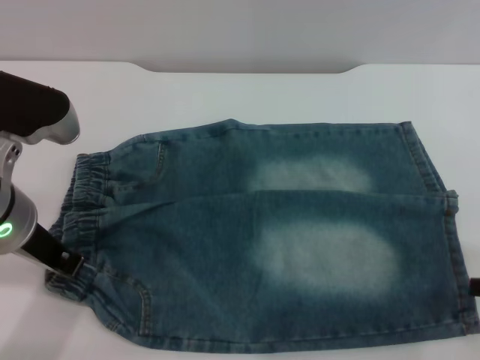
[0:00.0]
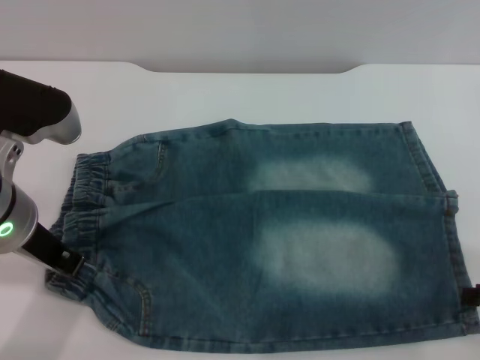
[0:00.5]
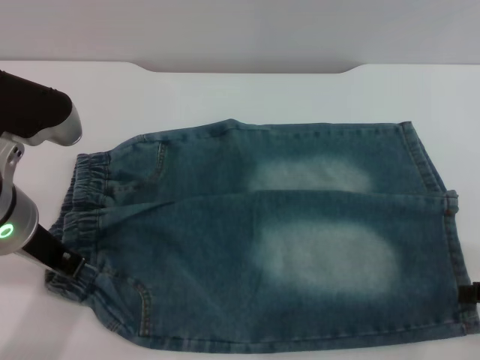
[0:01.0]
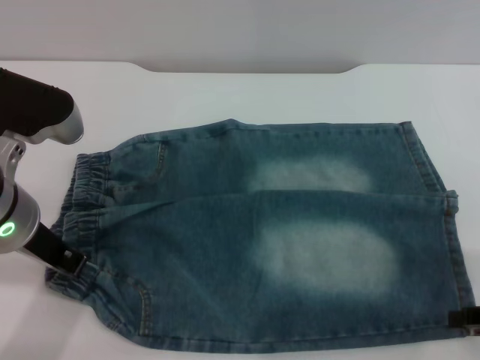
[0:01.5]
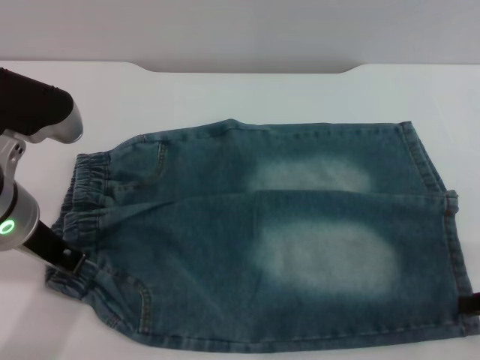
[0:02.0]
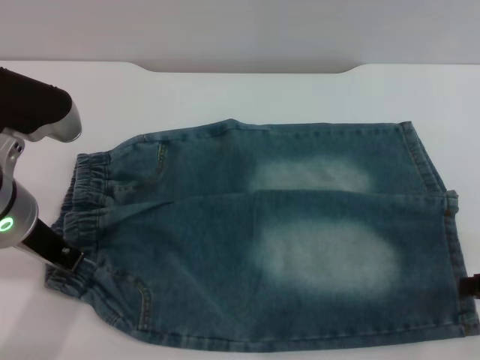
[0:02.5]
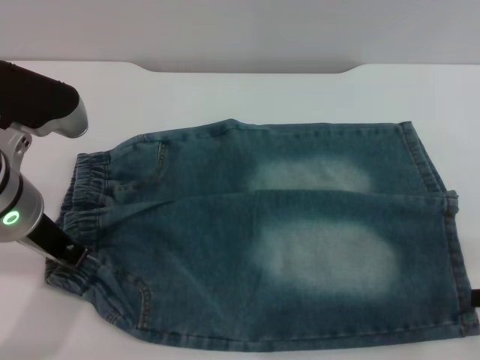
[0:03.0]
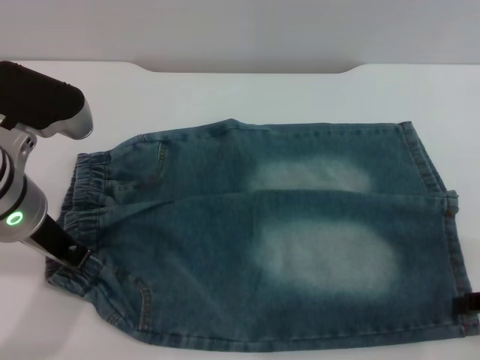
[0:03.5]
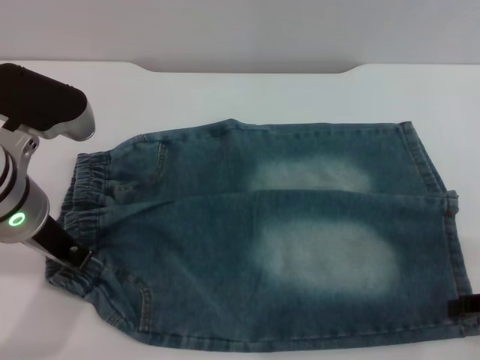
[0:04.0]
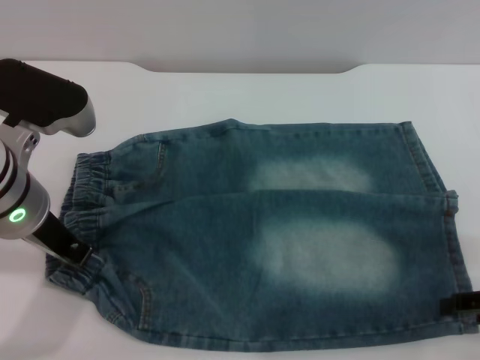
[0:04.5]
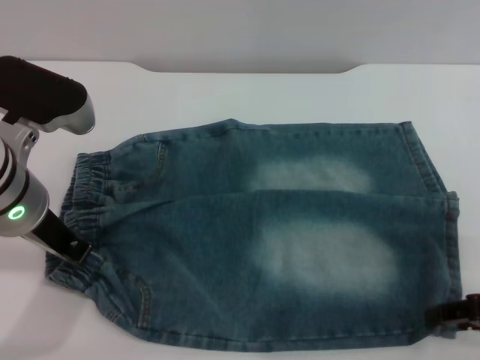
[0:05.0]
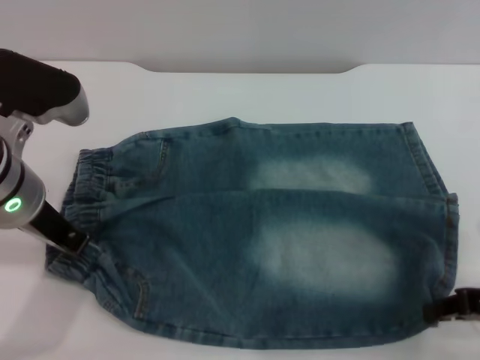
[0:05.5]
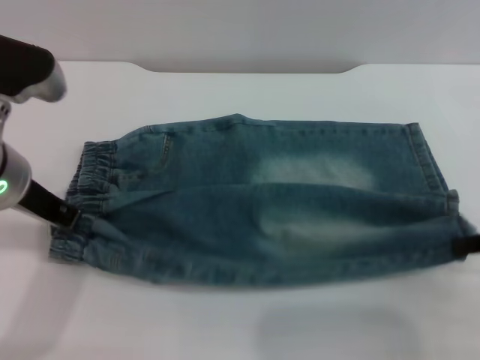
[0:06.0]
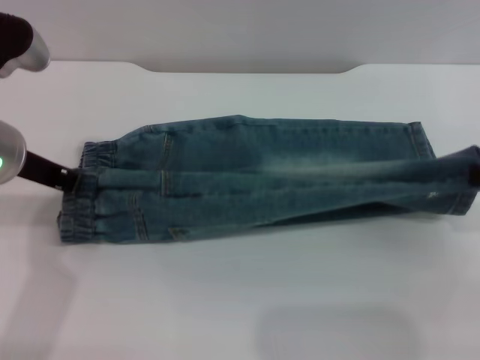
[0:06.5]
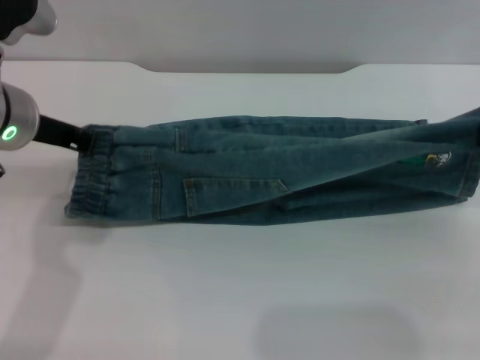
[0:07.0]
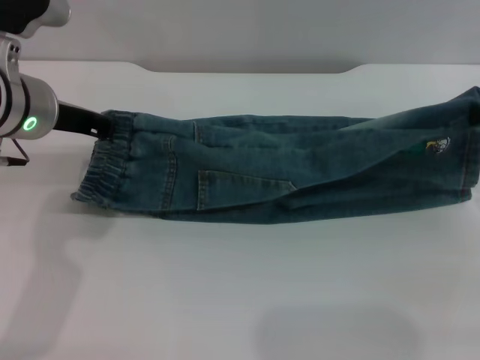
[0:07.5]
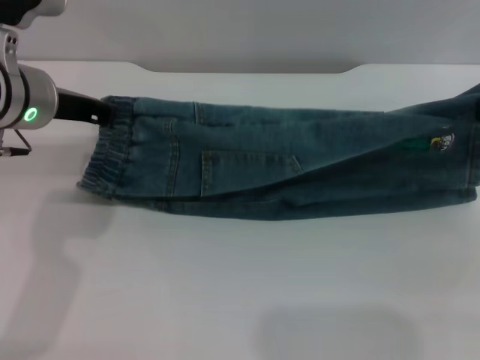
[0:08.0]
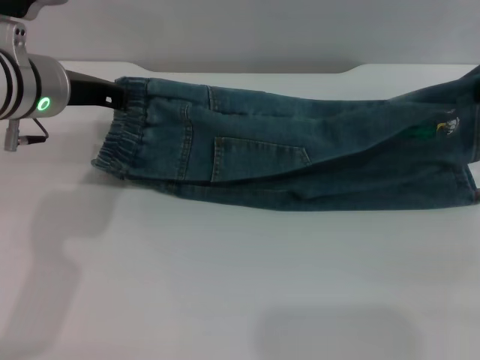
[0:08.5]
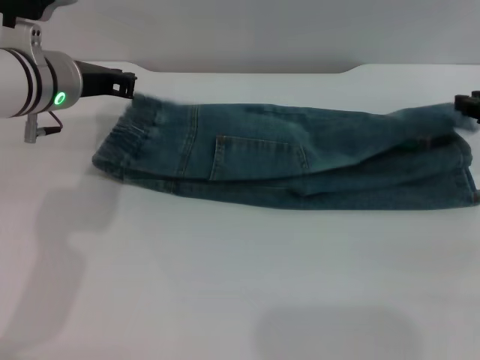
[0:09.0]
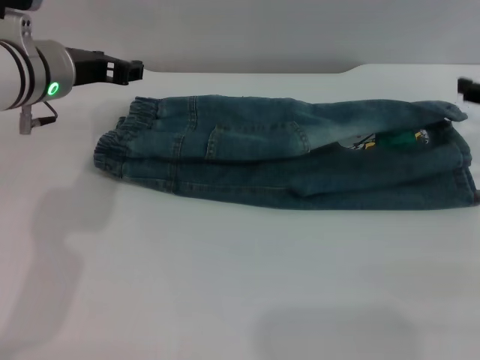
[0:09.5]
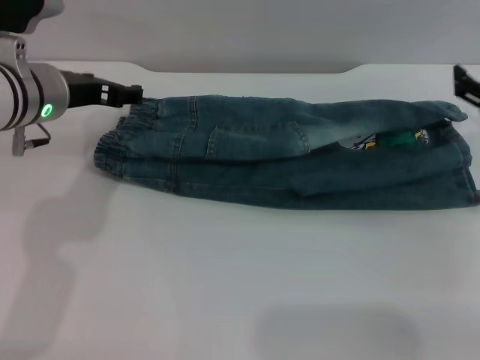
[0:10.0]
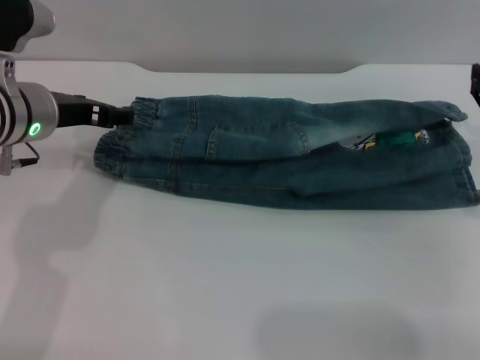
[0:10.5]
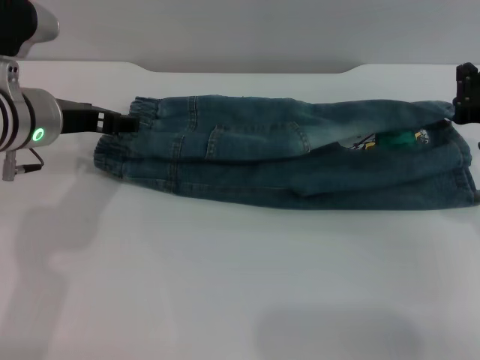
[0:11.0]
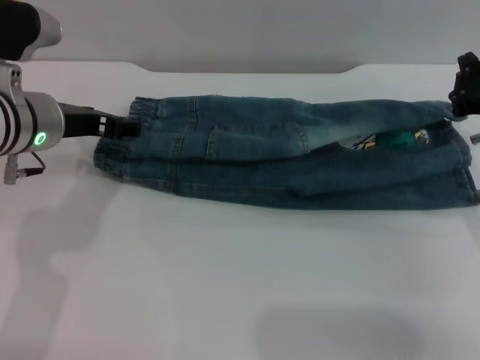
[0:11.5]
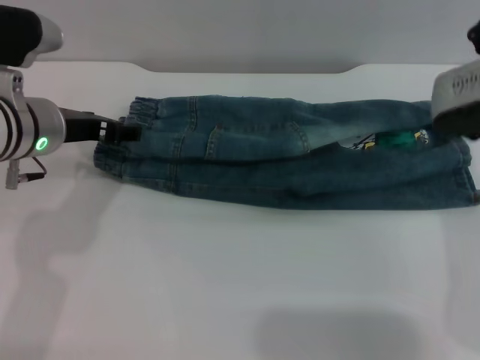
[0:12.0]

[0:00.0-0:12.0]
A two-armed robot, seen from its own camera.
Step, 0:00.0 to 0:09.5: Fold the bottom of the pants upward with both grippers.
0:04.0 to 0:06.0: The right gripper ends up roughly 5 cm from where it was, and closes its fingers.
0:06.0 to 0:08.0: The right gripper travels forward by some 5 cm.
0:08.0 to 0:10.0: The left gripper opens up; the right gripper is displaced downward by some 5 cm, and opens up.
0:10.0 to 0:12.0: The right gripper travels to the left by roughly 10 cm, and closes.

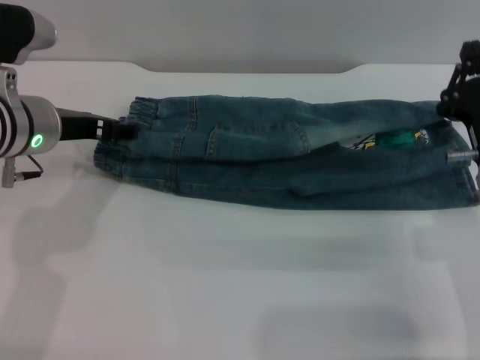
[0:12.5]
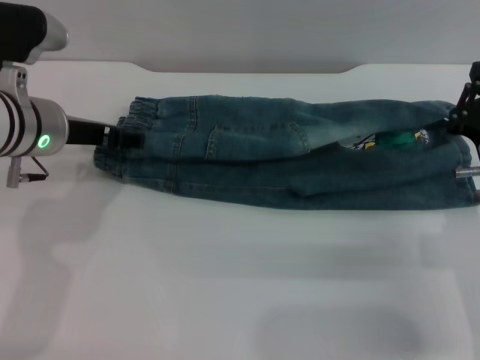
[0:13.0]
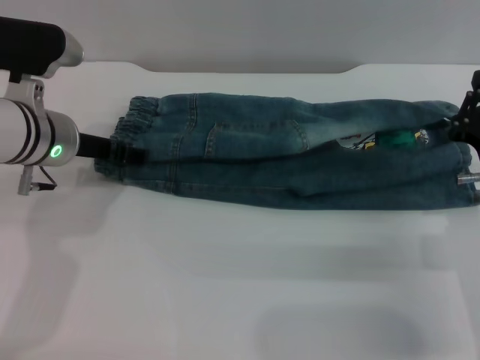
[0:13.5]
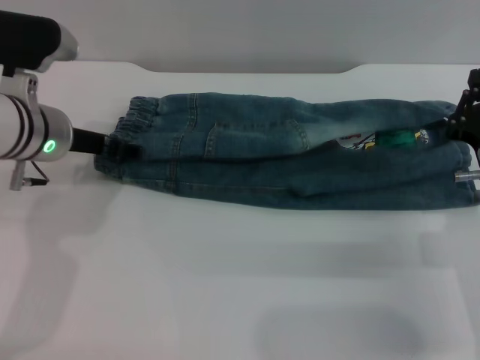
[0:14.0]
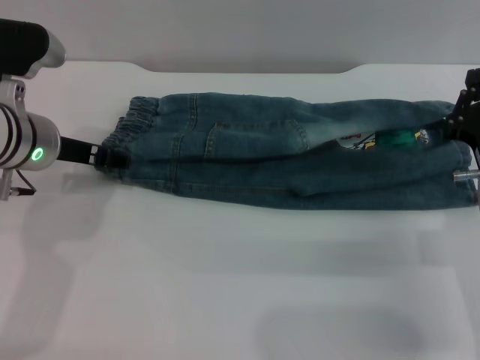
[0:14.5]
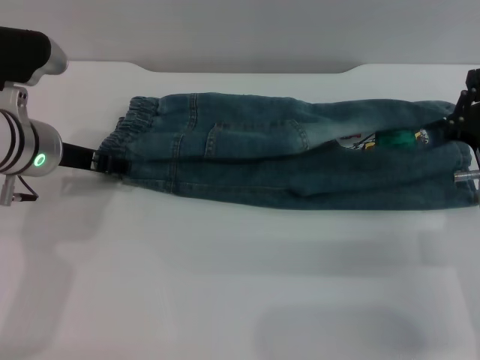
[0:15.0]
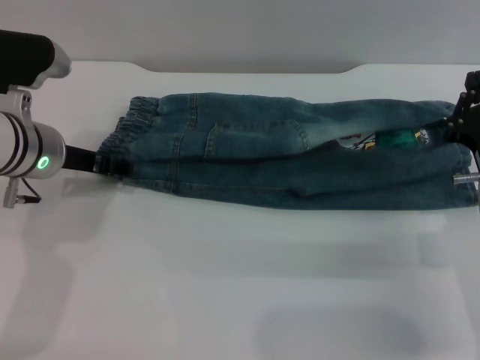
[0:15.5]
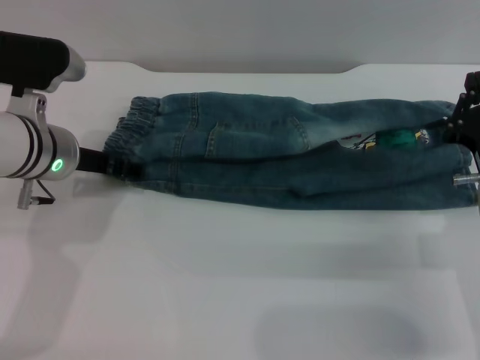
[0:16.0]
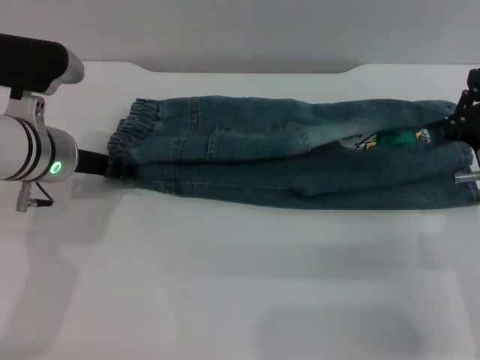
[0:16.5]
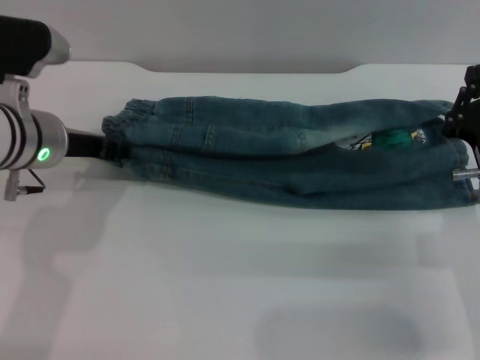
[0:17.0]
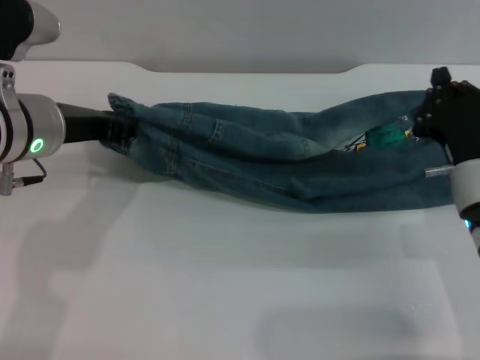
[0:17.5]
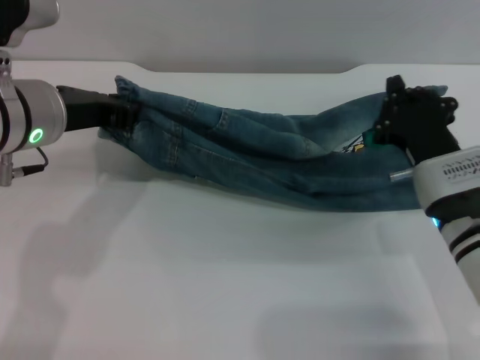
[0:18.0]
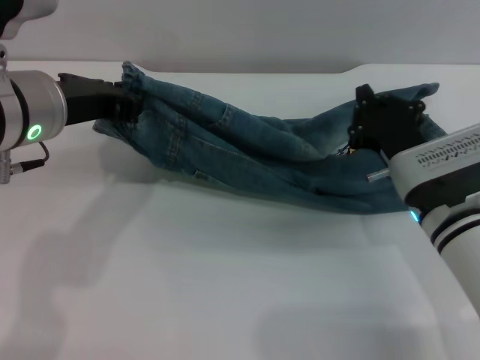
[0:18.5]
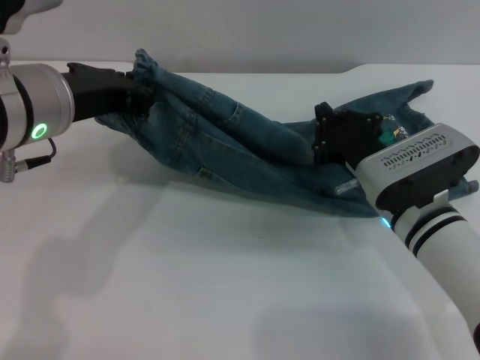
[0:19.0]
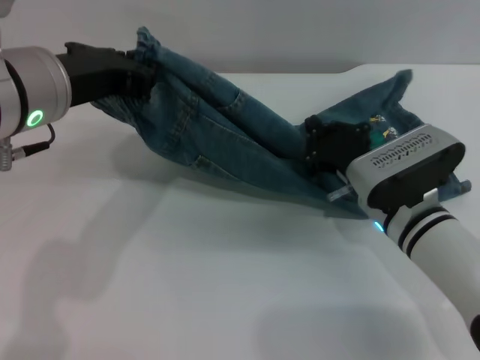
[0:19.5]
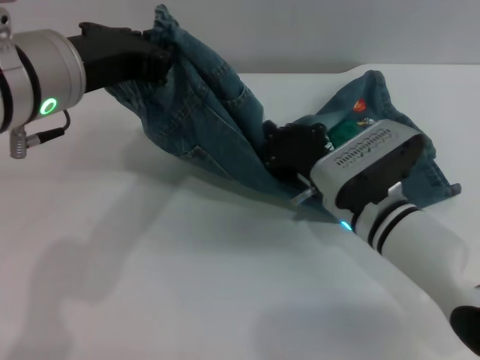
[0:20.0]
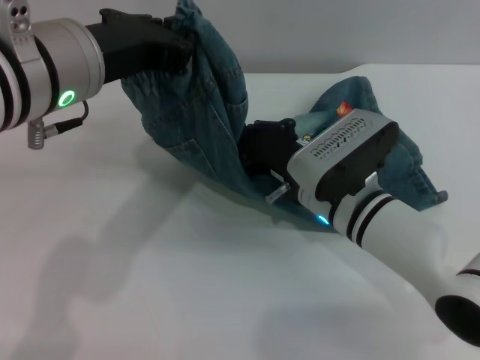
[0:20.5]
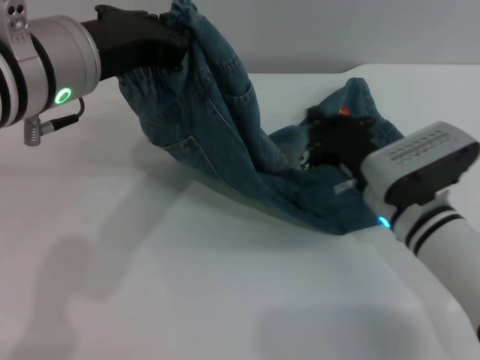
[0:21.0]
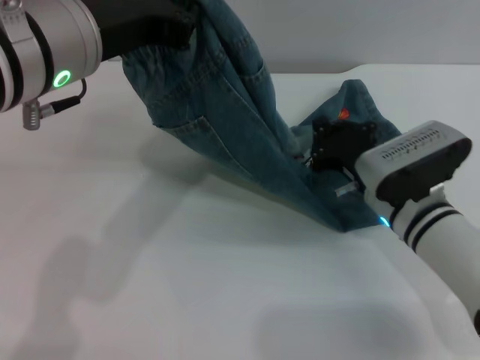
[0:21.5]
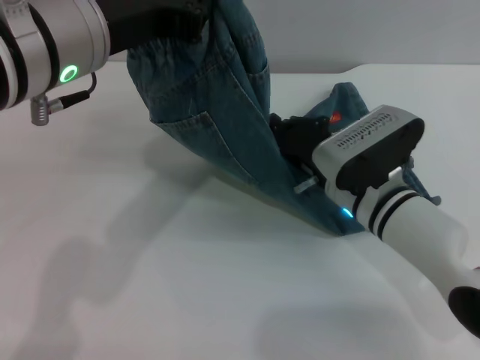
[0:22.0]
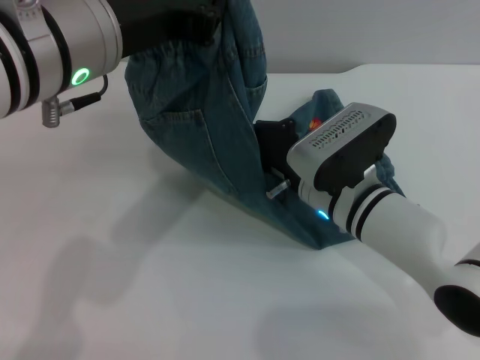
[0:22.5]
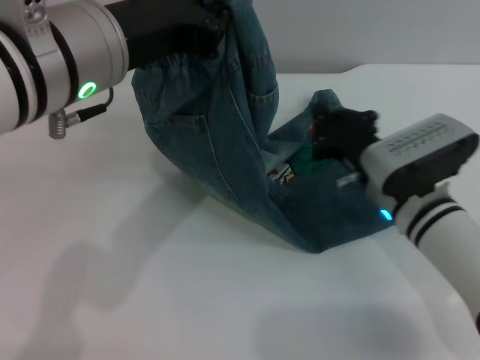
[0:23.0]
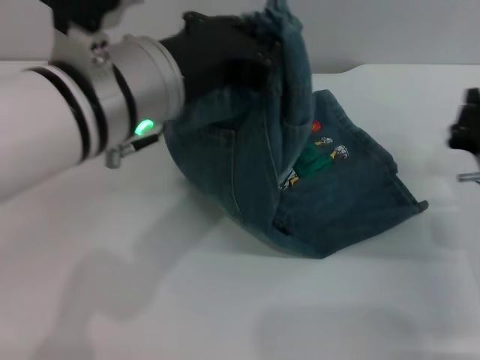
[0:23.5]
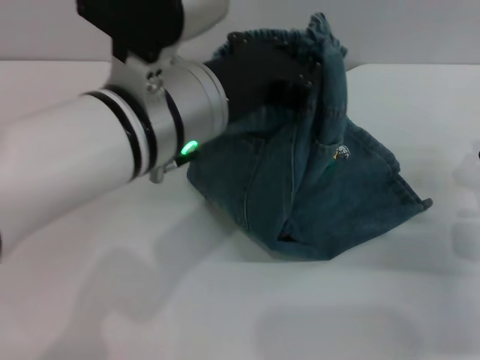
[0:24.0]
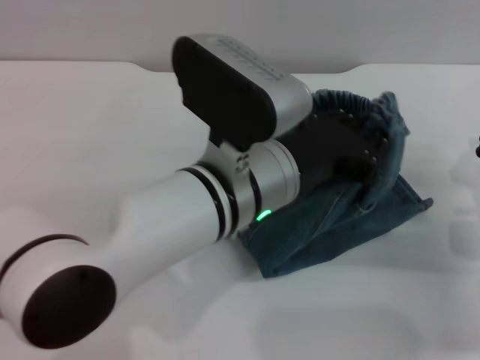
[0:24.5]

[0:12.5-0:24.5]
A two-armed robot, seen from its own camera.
0:12.5 to 0:16.5: The grippers make only small movements.
0:16.5 to 0:18.5: The left gripper is displaced upward by about 10 cm, and closes up, while the right gripper heads to the left, covering about 5 cm.
0:18.5 to 0:20.5: The right gripper is displaced to the left by some 10 cm. The left gripper changes place by some 5 cm.
0:22.5 to 0:24.5: The left gripper goes roughly 15 cm downward and to the right, while the right gripper shifts about 20 cm to the right.

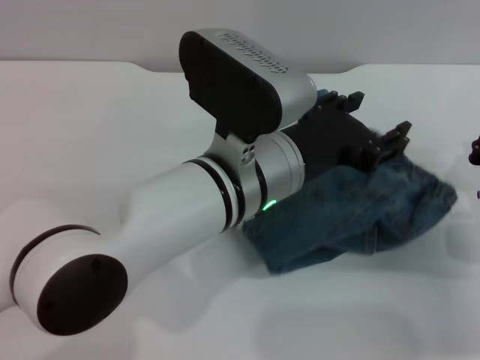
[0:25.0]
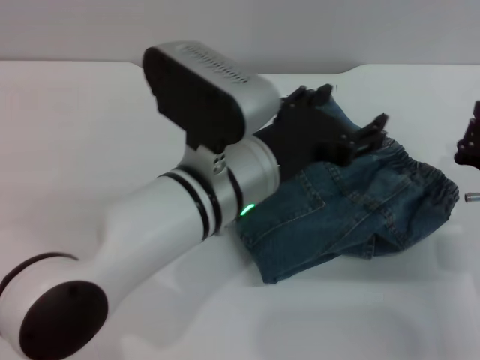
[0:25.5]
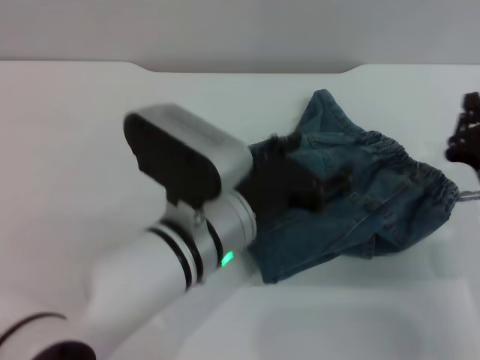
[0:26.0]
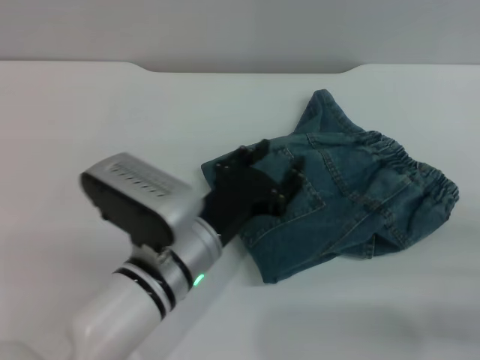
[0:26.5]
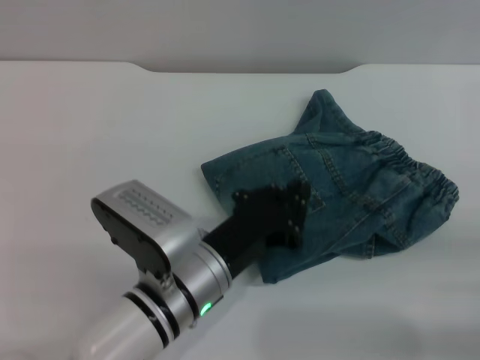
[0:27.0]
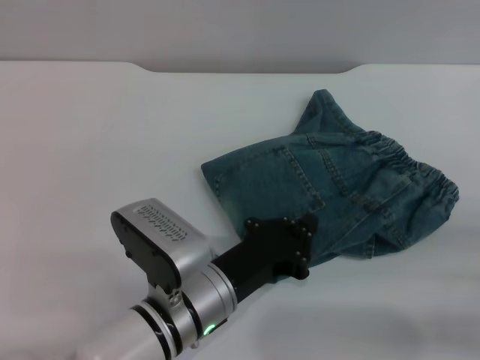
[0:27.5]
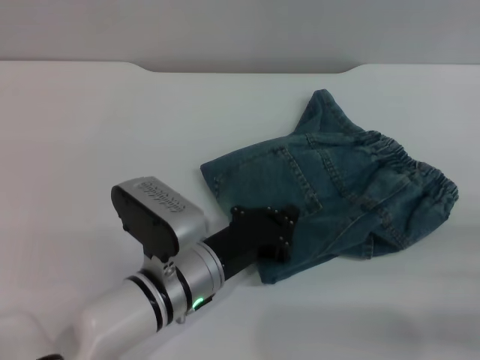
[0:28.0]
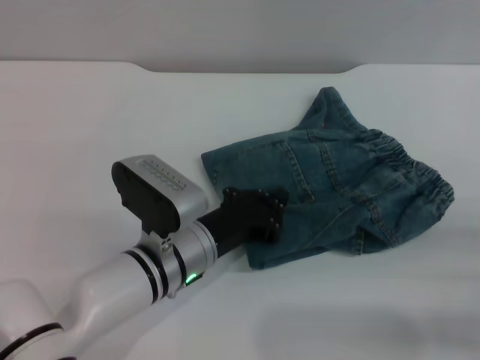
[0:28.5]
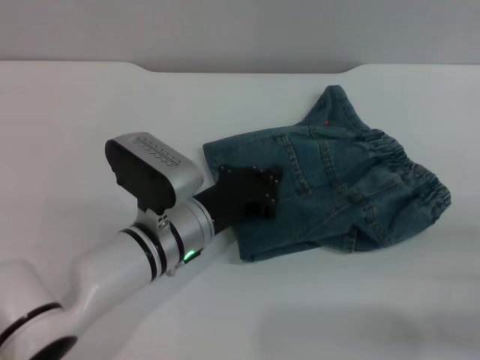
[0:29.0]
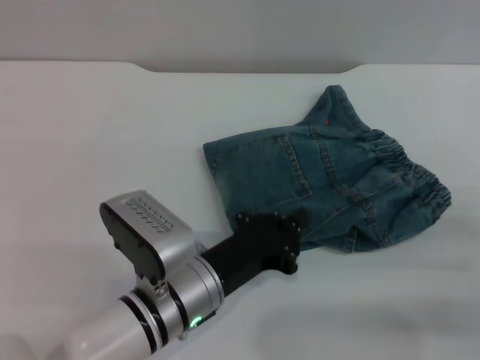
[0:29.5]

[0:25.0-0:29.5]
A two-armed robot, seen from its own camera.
0:25.0 to 0:27.0: The right gripper travels backward by some 10 cm; the left gripper heads downward and to the left, covering about 10 cm, and opens, then closes once more.
0:27.0 to 0:29.5: The left gripper goes forward and returns, approximately 5 cm each way.
